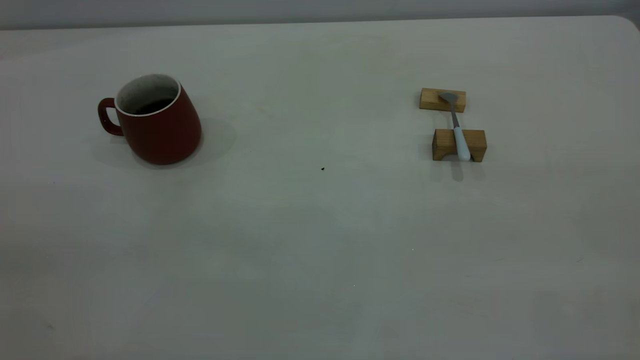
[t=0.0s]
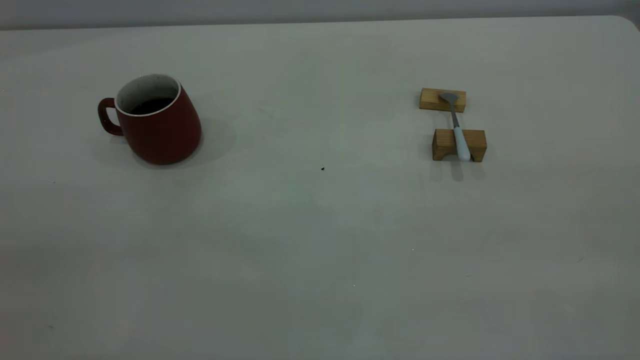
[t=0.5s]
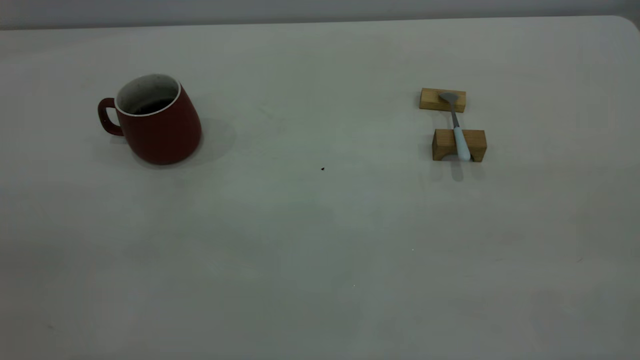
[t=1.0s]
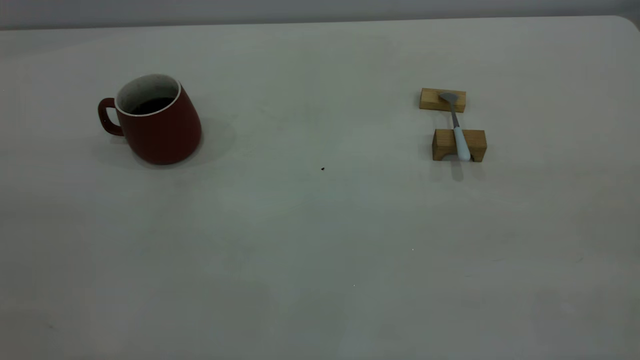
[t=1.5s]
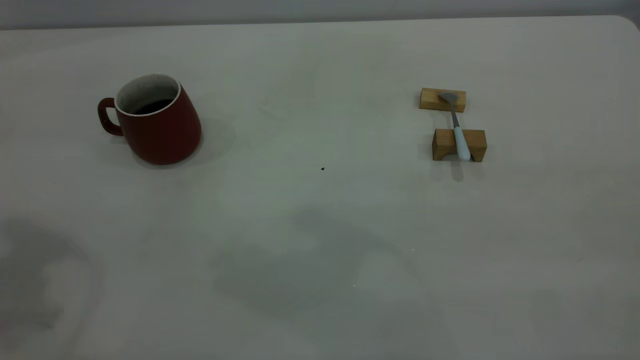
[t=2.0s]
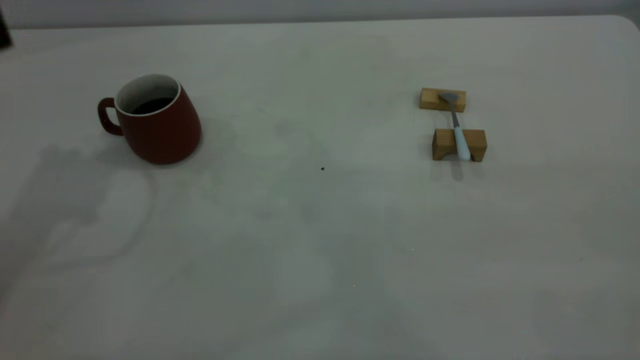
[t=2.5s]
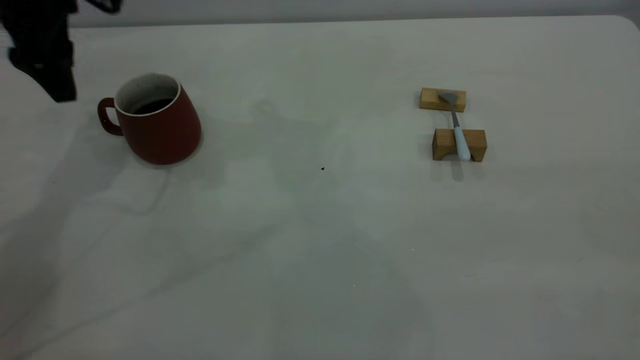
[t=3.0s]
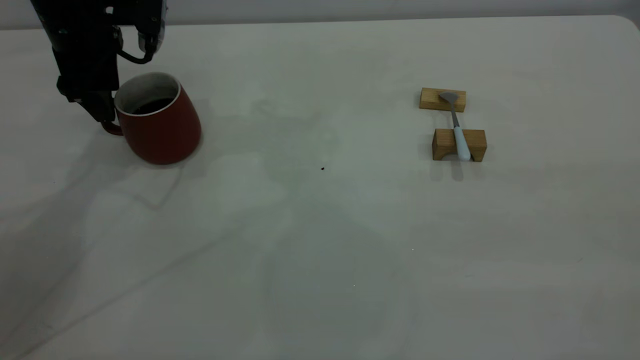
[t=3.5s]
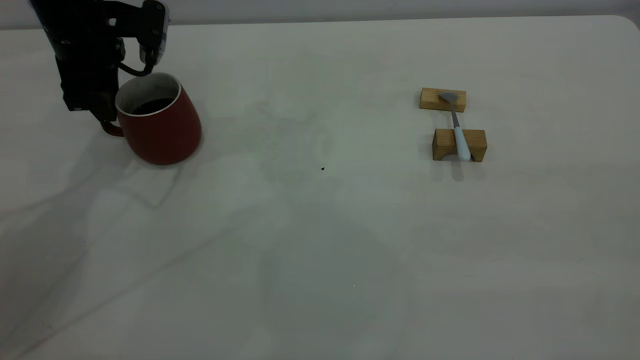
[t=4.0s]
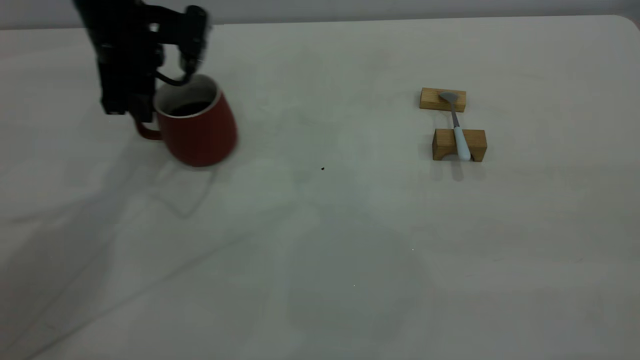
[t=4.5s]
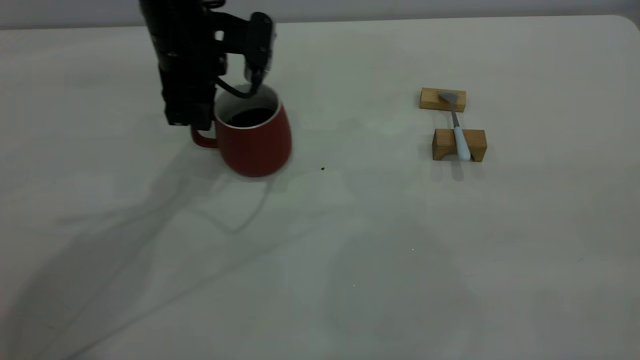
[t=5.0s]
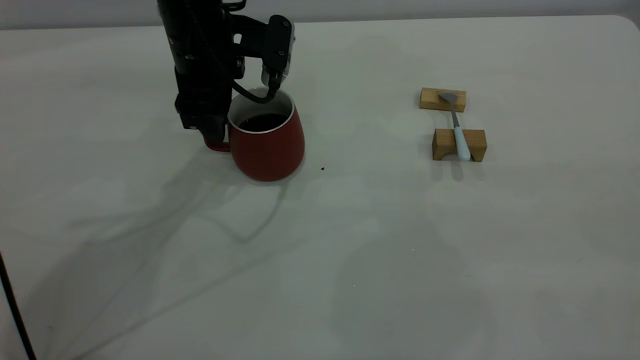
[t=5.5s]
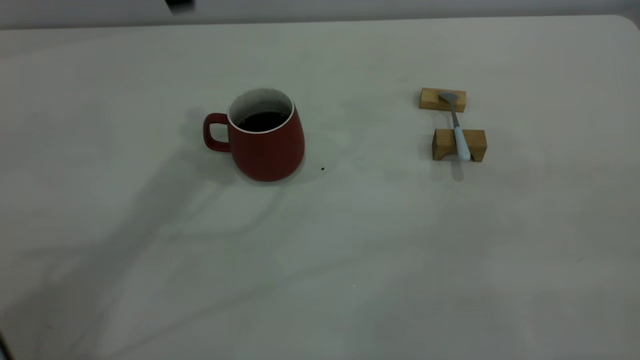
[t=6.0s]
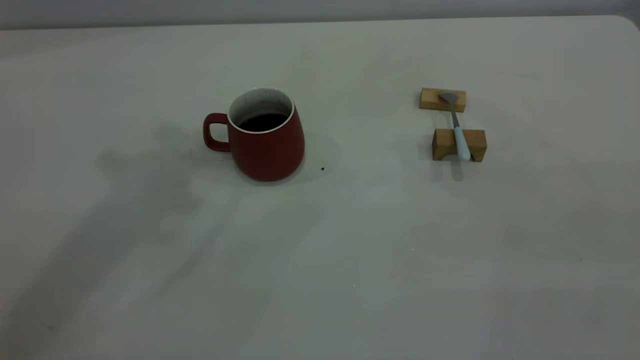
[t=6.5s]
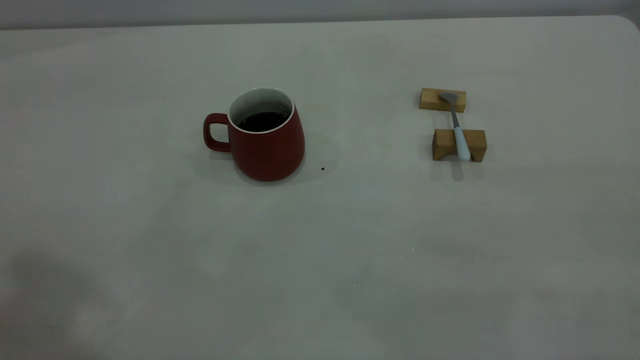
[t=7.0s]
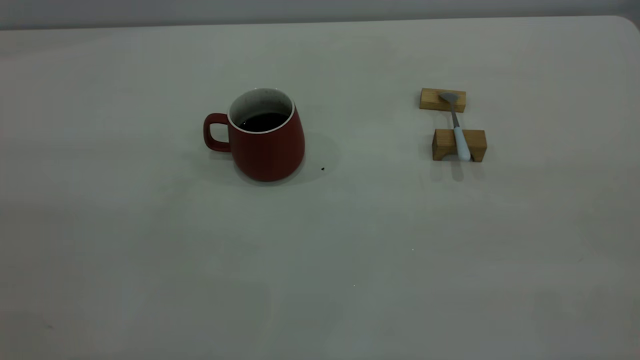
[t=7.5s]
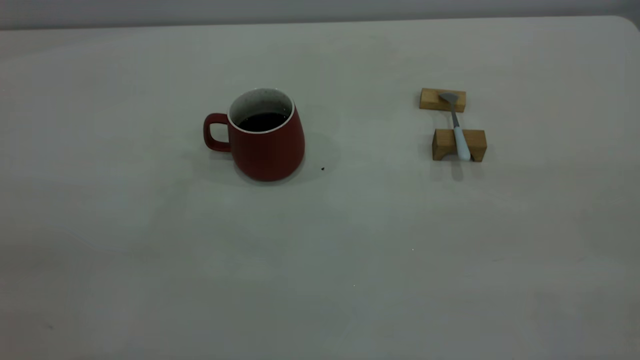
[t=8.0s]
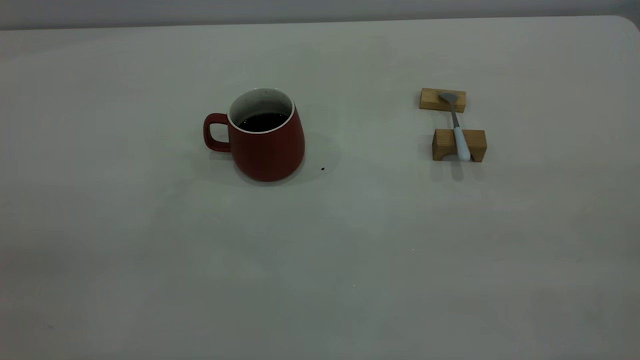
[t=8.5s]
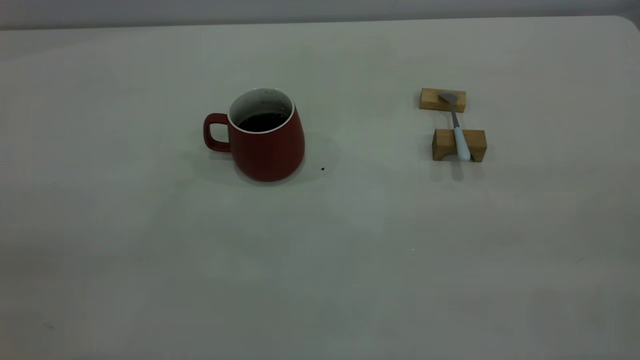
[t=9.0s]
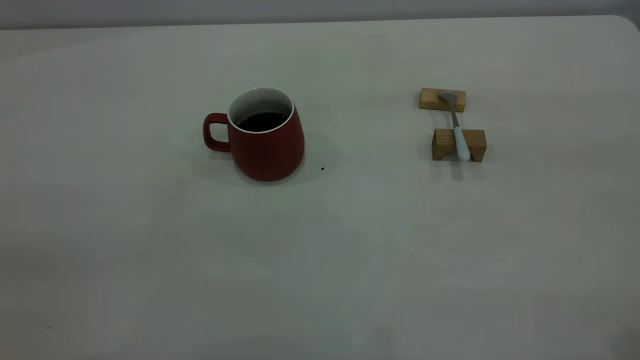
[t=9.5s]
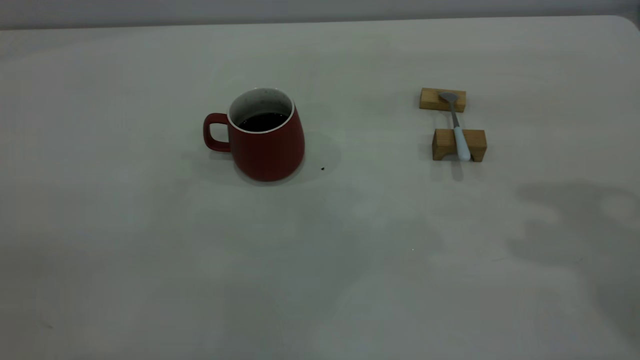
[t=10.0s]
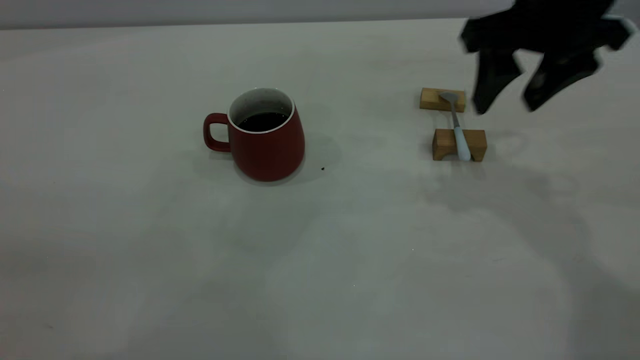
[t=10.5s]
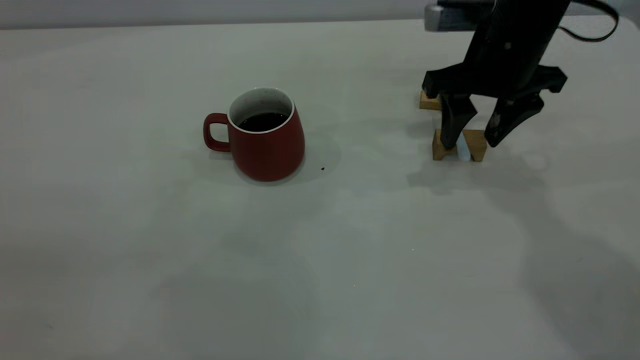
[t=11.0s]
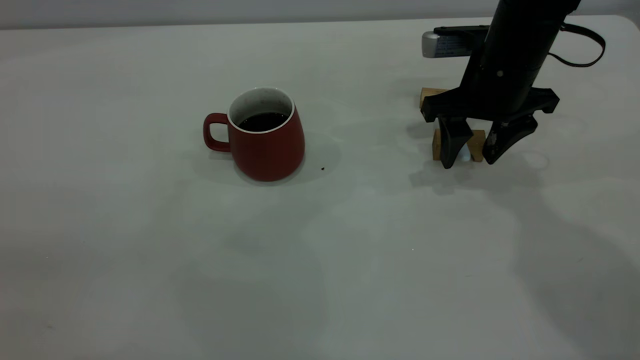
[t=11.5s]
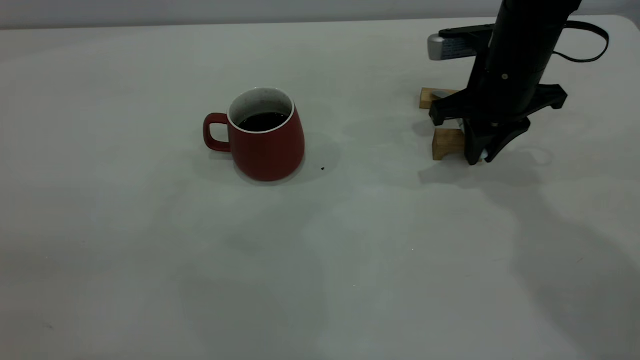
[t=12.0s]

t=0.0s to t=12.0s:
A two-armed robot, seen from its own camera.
Step, t=0.0s to t=5.5s: Move the cup with coffee to the center of view.
t=2.0s to t=4.0s: The left gripper shifts approximately 35 cm downward and forward, and opens and closes again.
t=4.0s to t=6.0s: The left gripper heads upward and to the right, covering about 25 cm, and opens its fingers.
t=10.0s to t=12.0s: The right gripper goes about 25 cm downward and forward, and closes its fingers.

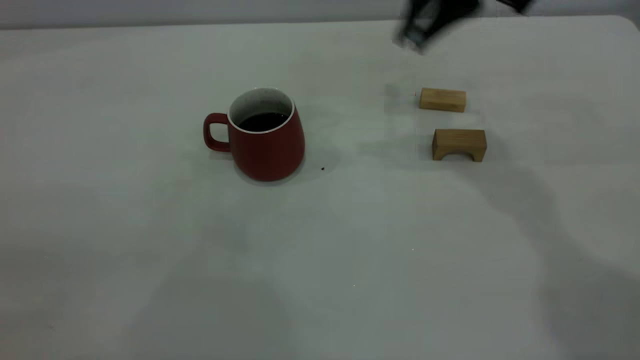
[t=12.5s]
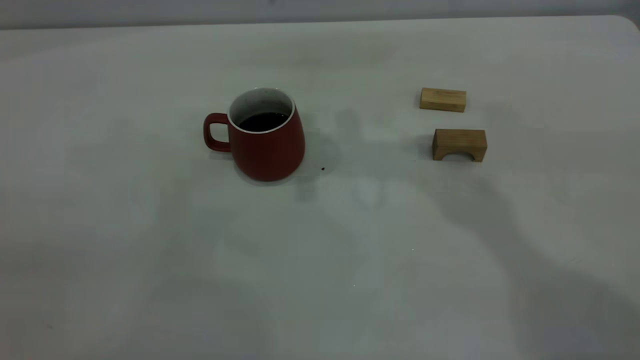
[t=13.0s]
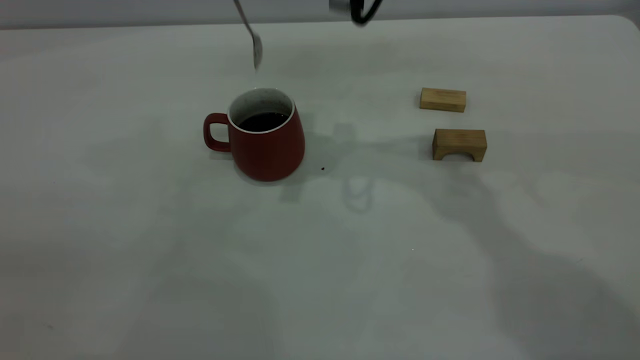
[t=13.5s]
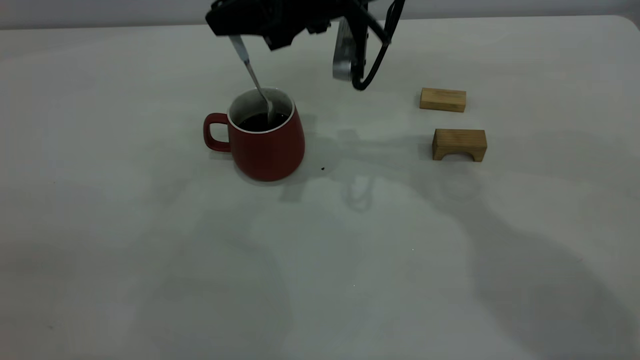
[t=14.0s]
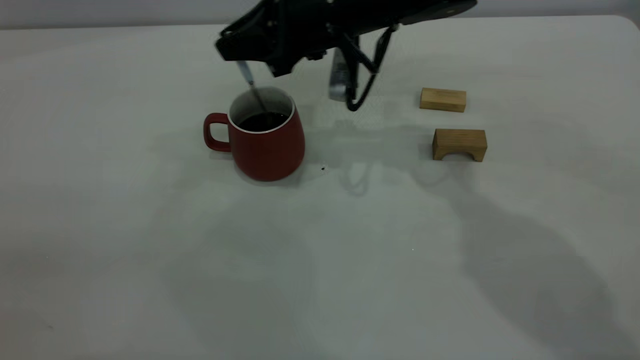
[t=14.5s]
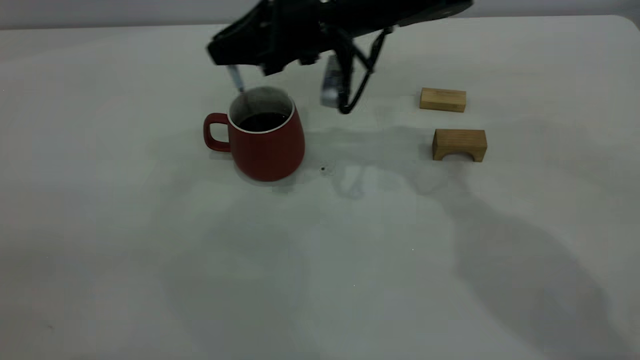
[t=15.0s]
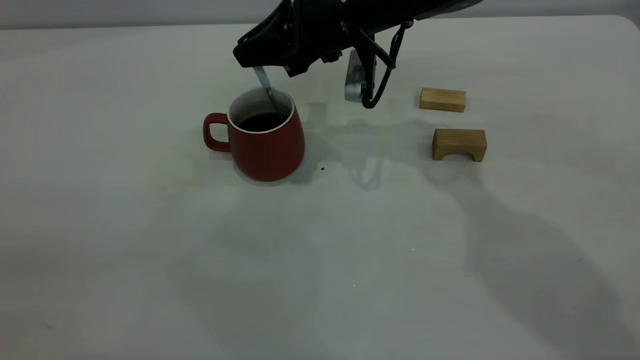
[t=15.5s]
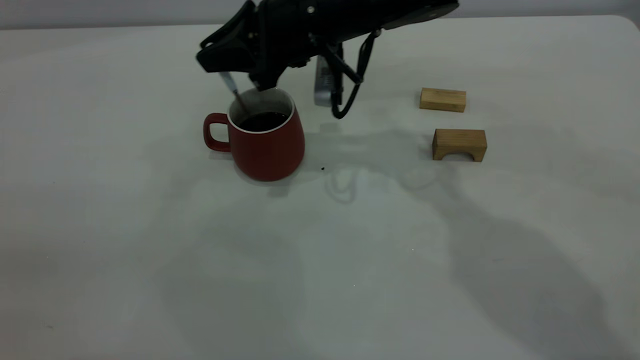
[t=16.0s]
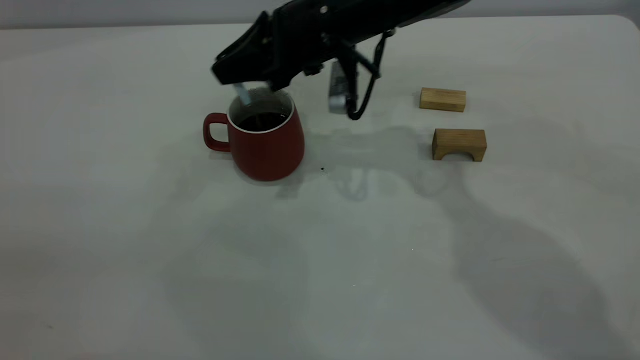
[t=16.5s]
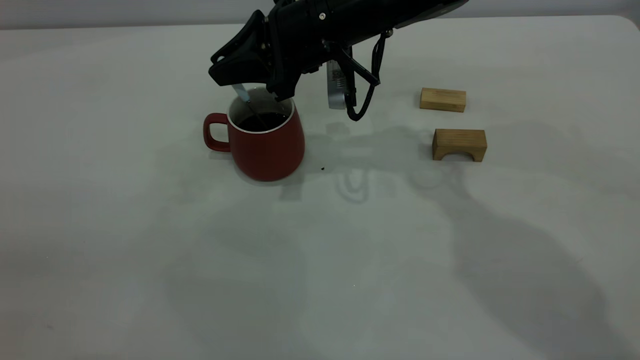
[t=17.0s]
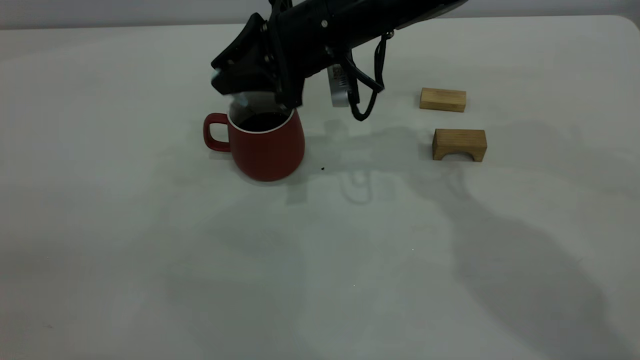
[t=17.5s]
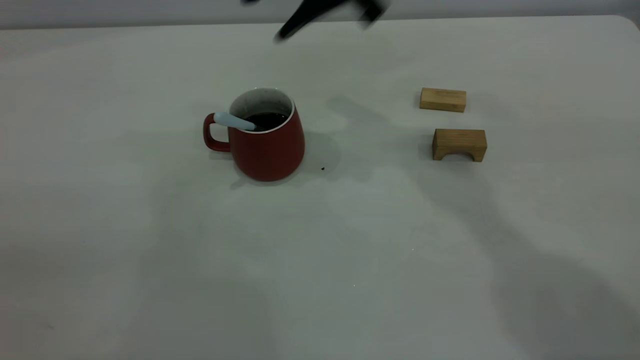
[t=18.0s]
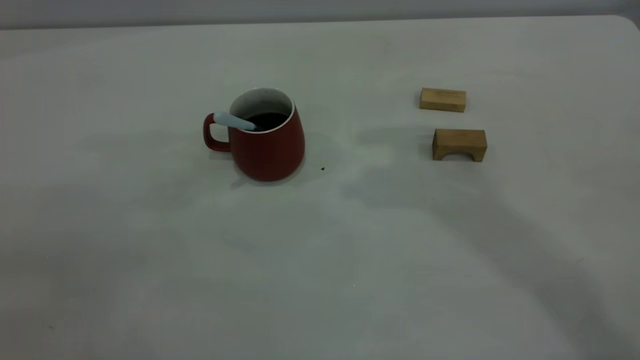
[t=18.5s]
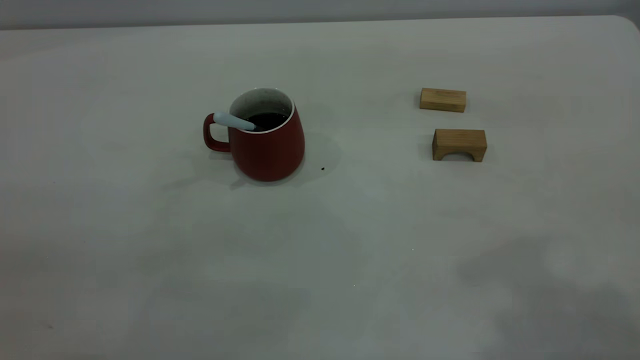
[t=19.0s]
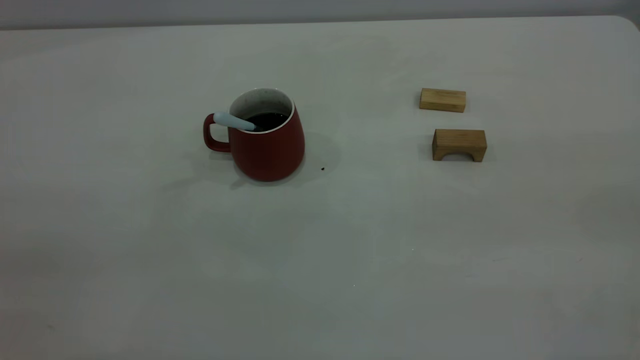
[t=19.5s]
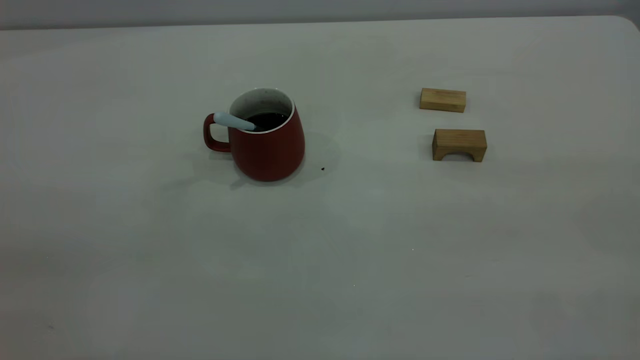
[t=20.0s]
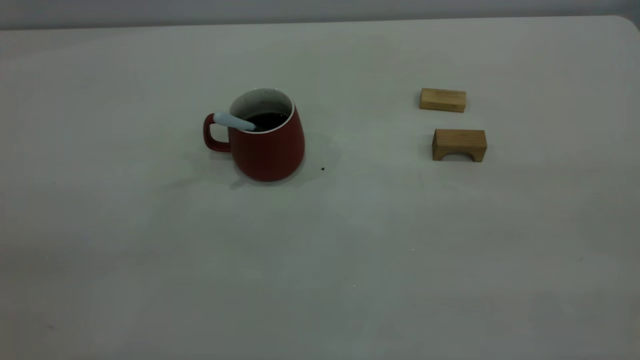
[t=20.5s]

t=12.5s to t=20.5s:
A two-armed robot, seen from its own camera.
Step, t=12.5s to t=17.5s: Stir the coffee in the cup.
t=12.5s to t=14.5s: The right gripper goes roughly 15 cm downward and to the left.
t=14.5s to t=16.5s: The grippers move only a little.
t=16.5s to t=18.5s: The right gripper goes some 30 cm upward, and opens its fingers.
